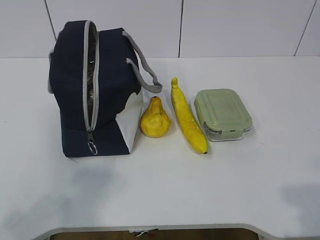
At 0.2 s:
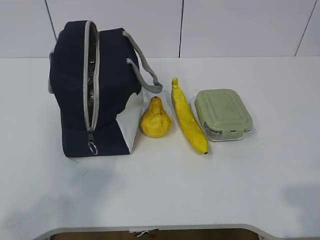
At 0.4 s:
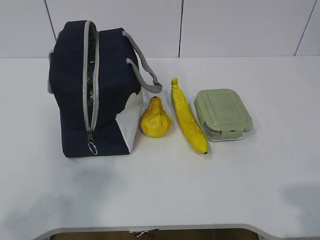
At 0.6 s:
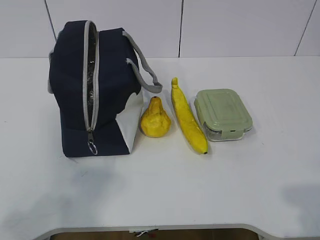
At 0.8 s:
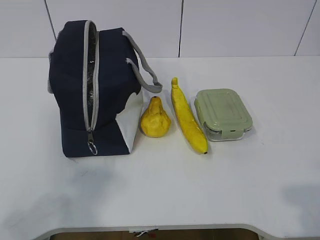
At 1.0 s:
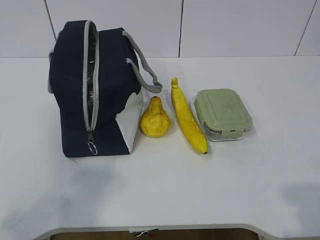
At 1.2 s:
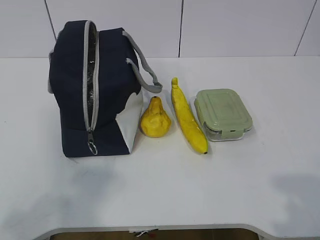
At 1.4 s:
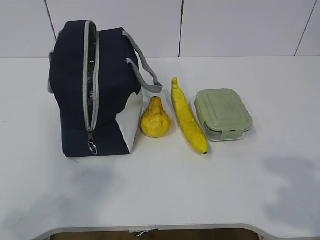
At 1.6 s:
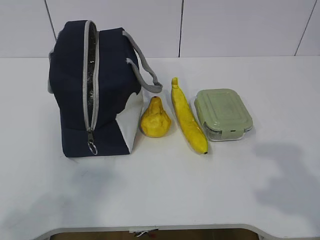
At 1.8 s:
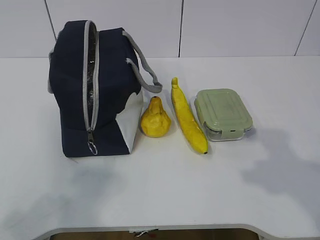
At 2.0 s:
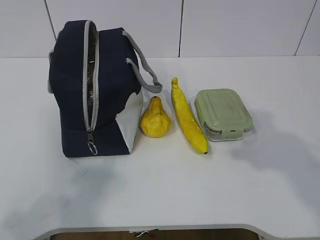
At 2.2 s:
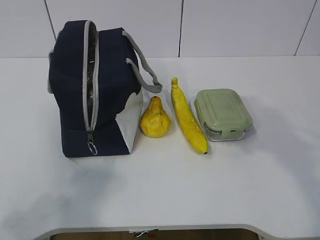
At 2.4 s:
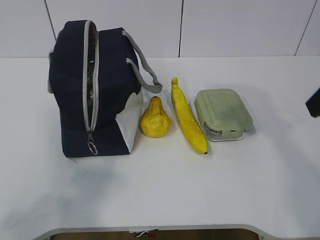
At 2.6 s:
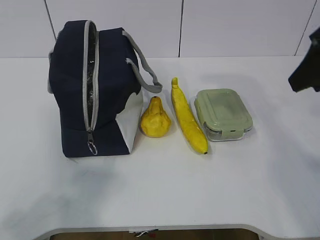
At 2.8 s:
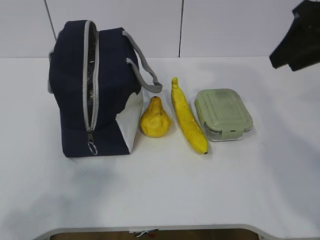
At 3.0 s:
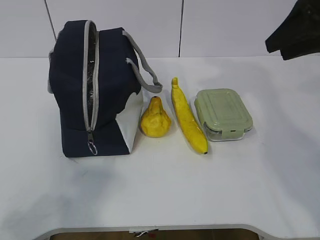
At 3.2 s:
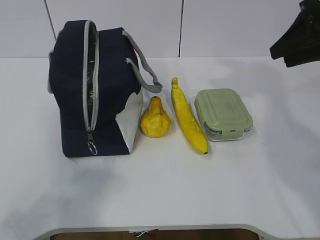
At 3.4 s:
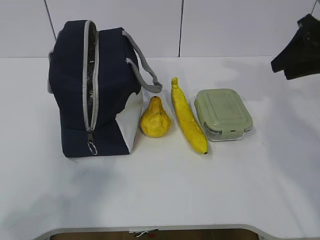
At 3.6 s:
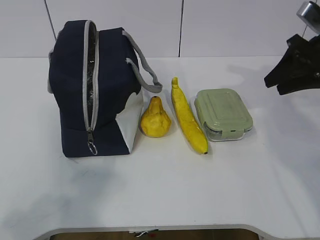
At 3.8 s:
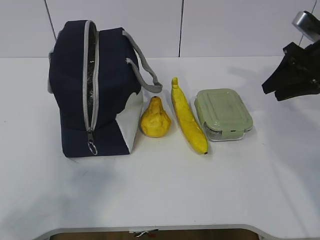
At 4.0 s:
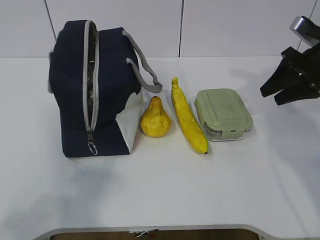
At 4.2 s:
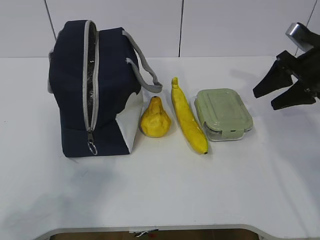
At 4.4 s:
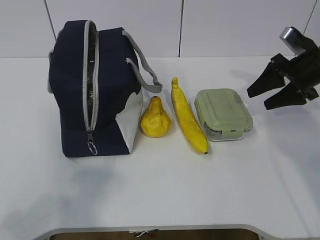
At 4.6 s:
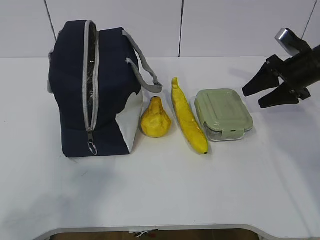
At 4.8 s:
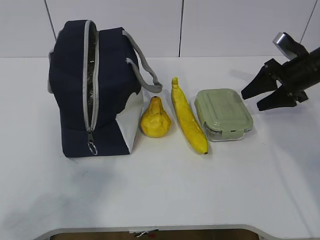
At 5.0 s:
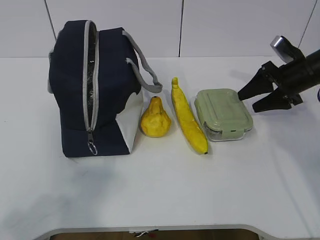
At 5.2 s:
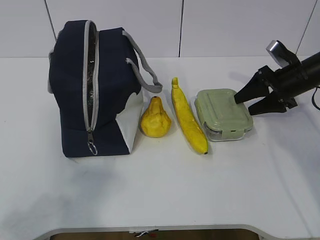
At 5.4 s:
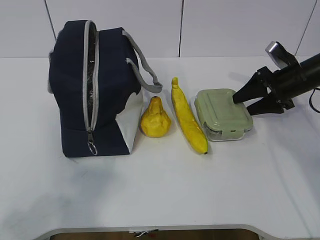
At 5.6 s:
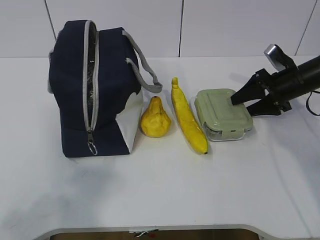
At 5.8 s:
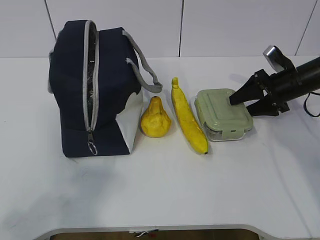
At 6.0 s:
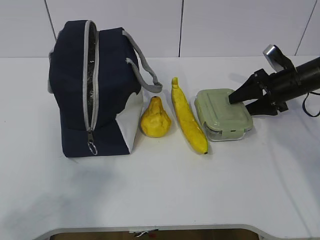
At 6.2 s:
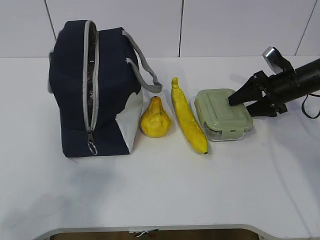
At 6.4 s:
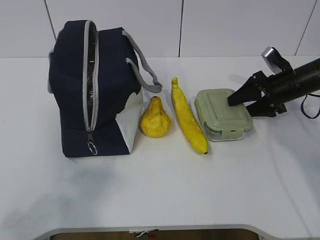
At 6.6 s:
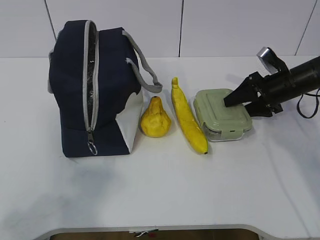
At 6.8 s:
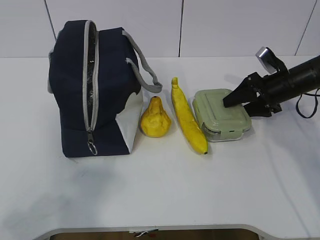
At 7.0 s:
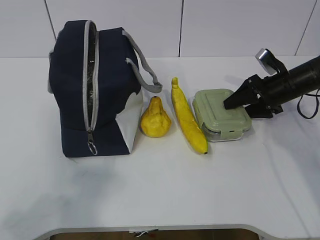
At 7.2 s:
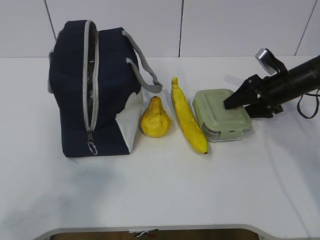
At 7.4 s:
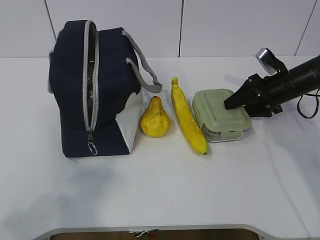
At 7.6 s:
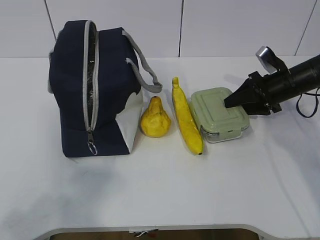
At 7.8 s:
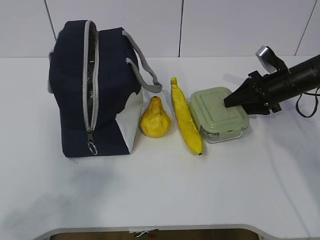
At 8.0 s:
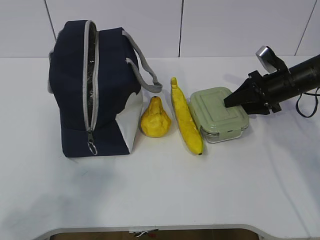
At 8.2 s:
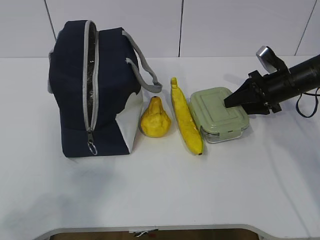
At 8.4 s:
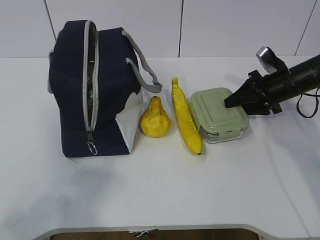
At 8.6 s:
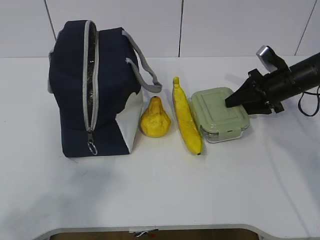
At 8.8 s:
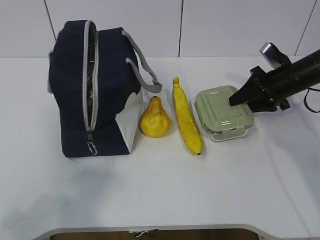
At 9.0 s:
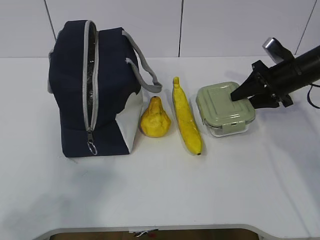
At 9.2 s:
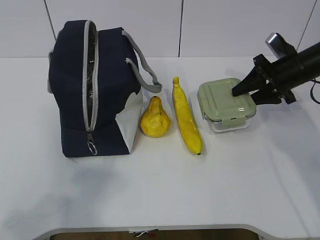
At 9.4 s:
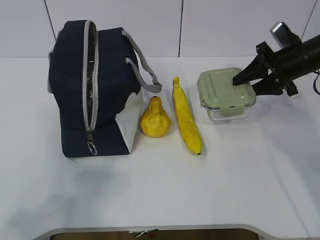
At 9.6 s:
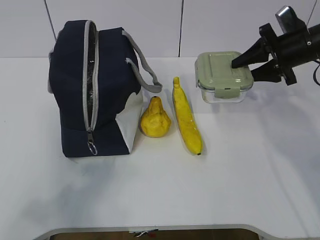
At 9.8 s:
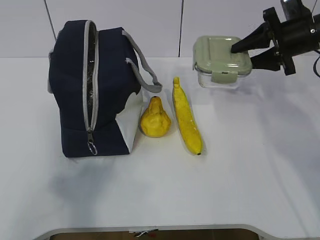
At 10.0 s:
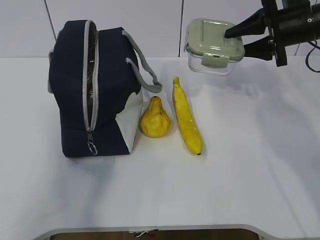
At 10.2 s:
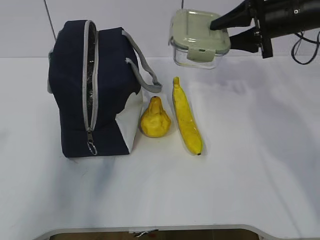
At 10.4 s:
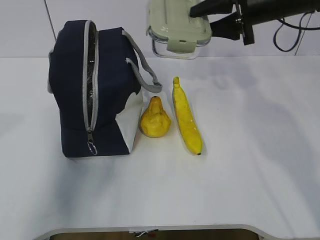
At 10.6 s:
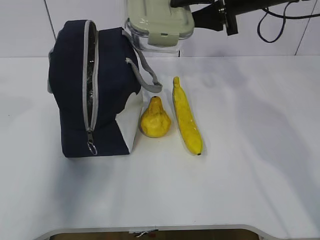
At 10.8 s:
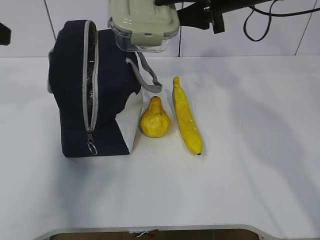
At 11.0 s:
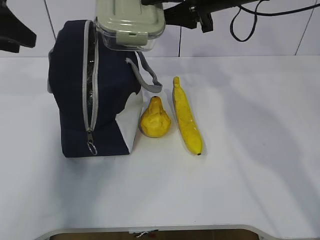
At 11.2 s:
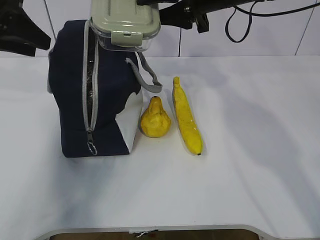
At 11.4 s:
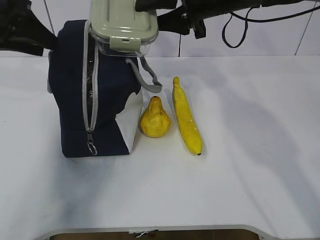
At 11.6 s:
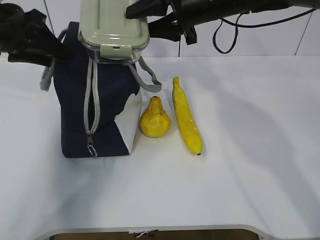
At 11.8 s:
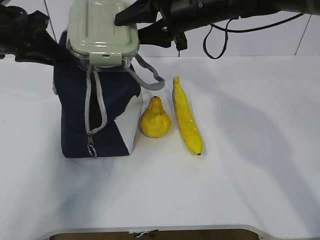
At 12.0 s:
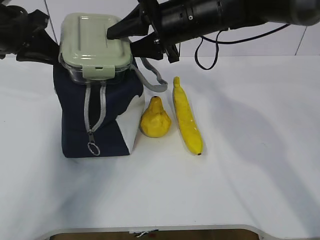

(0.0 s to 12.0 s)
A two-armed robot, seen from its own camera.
Step, 0.0 s - 7.0 s: Grab the lunch box with your right hand.
1.6 s - 3.0 s: The right gripper moves forward, roughly 30 cm.
3.0 s - 4.4 s: The right gripper heads downward and forward, covering approximately 15 cm.
4.4 s - 6.0 s: The right gripper moves downward, roughly 5 cm.
6.0 s - 7.6 s: Neither gripper changes place.
7.6 s - 9.0 s: There are only small adjustments of the grippers.
9.0 s - 10.4 s: The right gripper shifts roughly 15 cm upward and to the left; the left gripper heads forward and upward, covering about 15 cm.
10.4 s - 12.0 s: The left gripper travels forward by about 25 cm, and closes. The right gripper shifts approximately 15 cm to the left.

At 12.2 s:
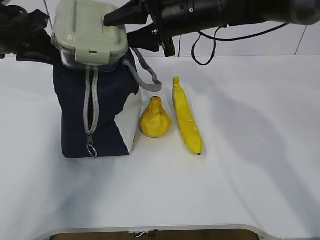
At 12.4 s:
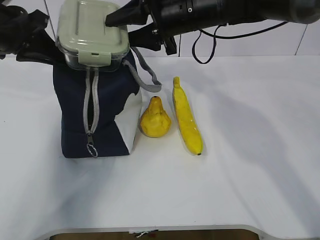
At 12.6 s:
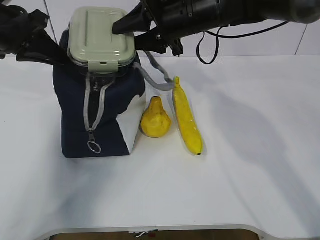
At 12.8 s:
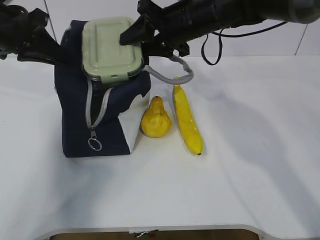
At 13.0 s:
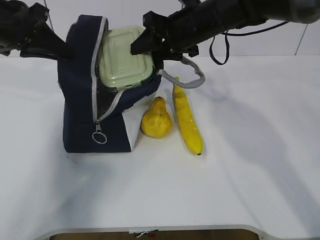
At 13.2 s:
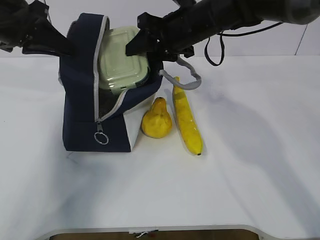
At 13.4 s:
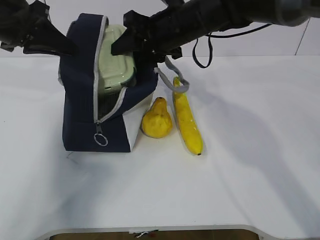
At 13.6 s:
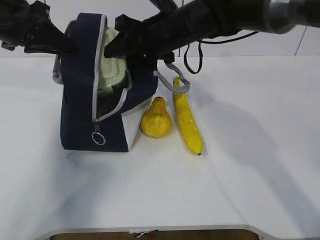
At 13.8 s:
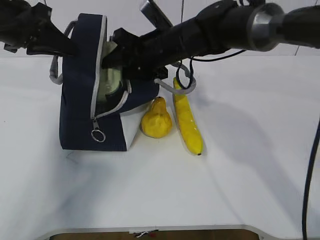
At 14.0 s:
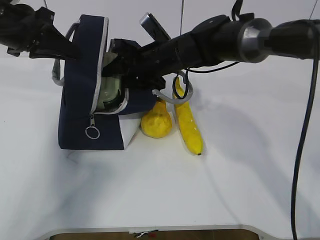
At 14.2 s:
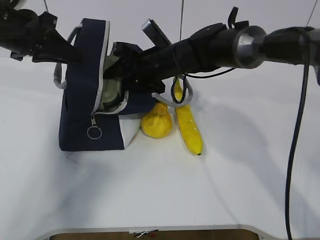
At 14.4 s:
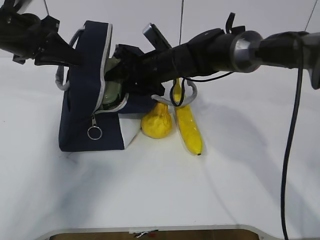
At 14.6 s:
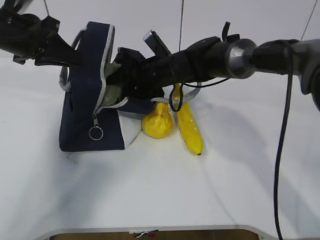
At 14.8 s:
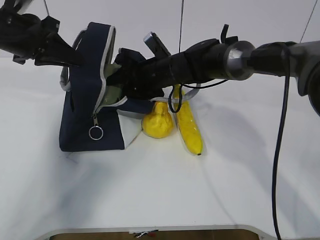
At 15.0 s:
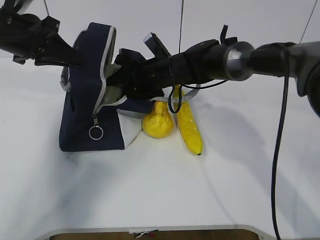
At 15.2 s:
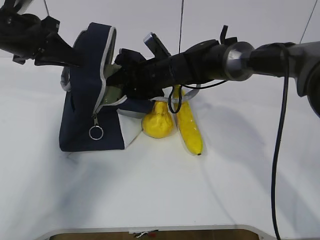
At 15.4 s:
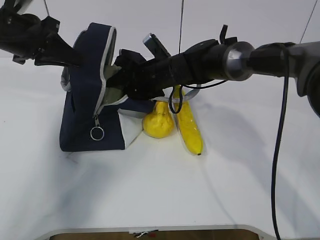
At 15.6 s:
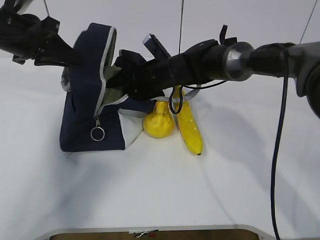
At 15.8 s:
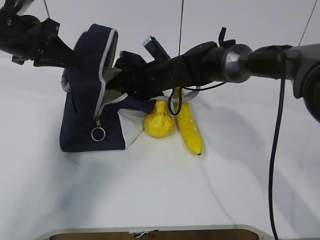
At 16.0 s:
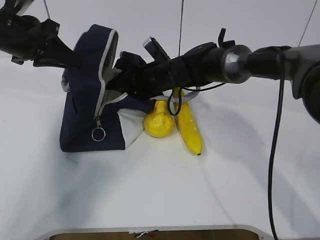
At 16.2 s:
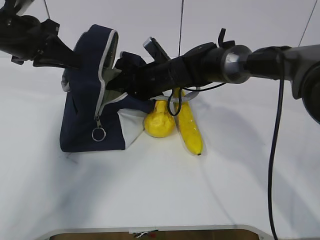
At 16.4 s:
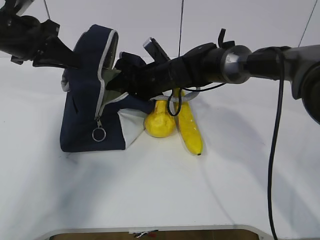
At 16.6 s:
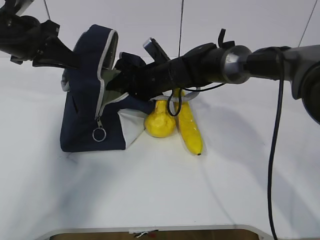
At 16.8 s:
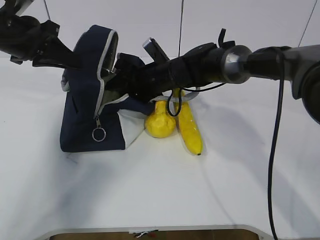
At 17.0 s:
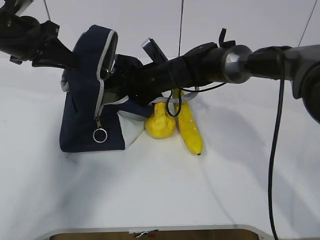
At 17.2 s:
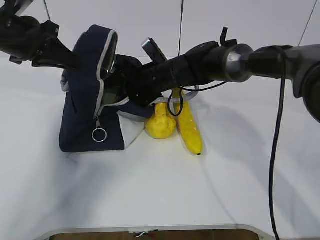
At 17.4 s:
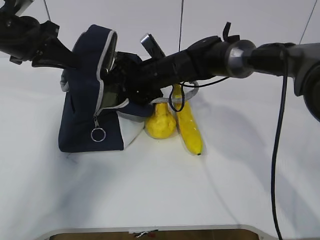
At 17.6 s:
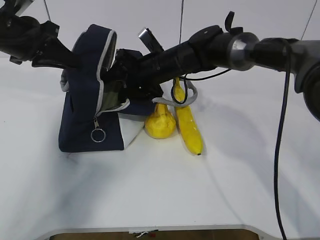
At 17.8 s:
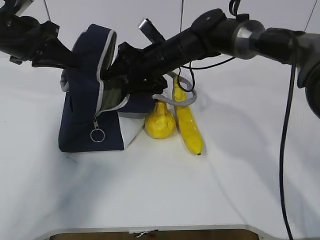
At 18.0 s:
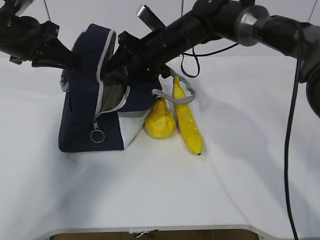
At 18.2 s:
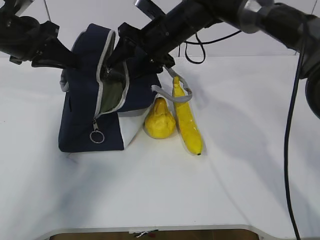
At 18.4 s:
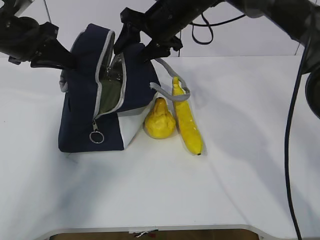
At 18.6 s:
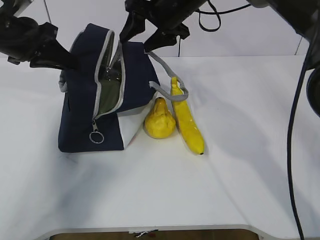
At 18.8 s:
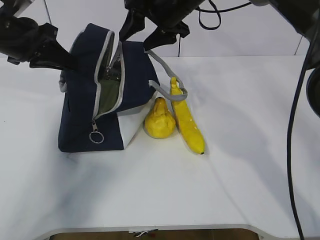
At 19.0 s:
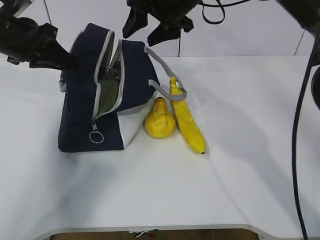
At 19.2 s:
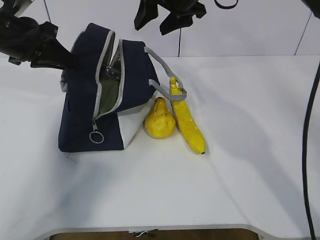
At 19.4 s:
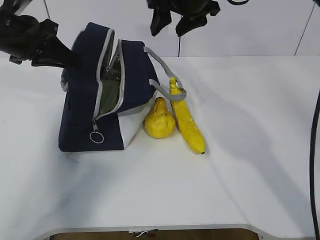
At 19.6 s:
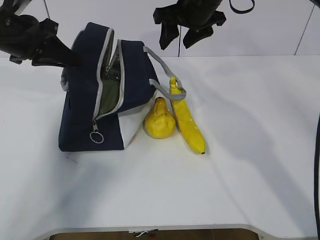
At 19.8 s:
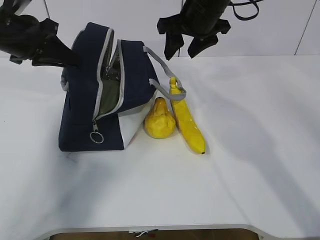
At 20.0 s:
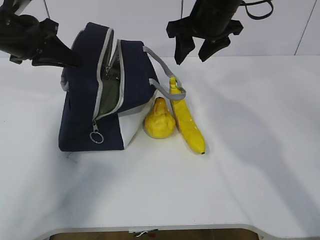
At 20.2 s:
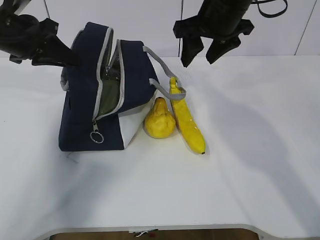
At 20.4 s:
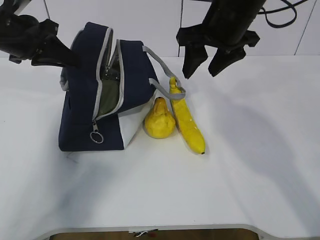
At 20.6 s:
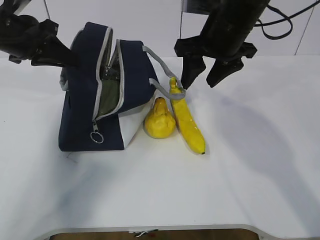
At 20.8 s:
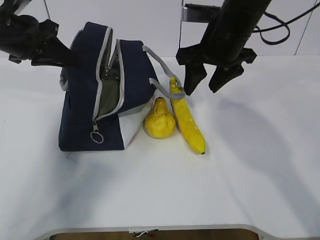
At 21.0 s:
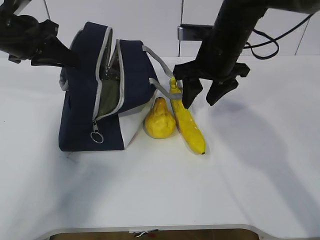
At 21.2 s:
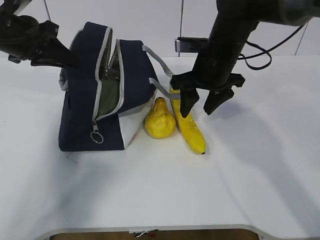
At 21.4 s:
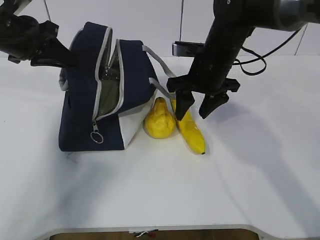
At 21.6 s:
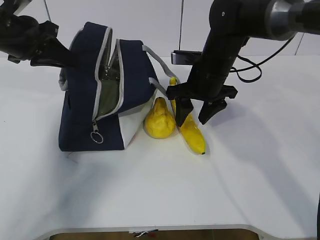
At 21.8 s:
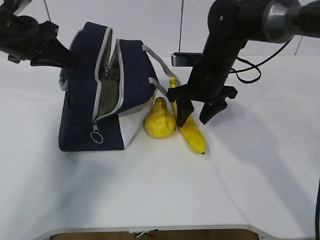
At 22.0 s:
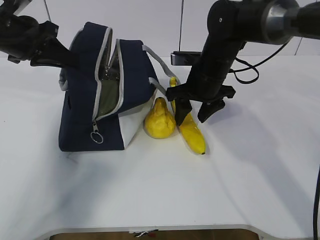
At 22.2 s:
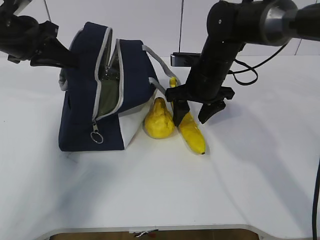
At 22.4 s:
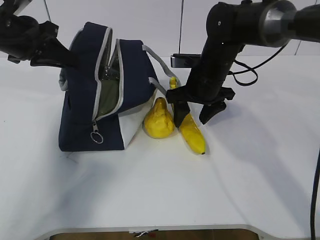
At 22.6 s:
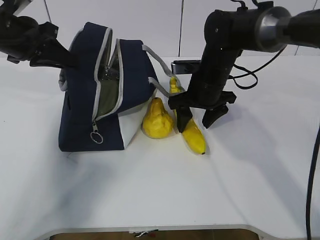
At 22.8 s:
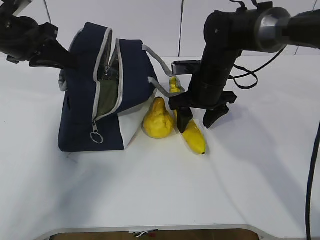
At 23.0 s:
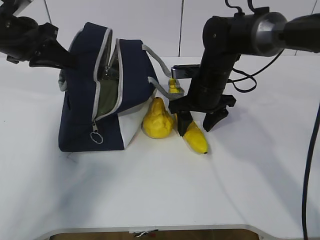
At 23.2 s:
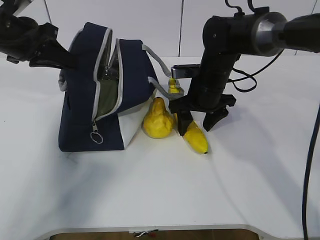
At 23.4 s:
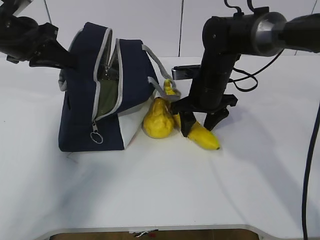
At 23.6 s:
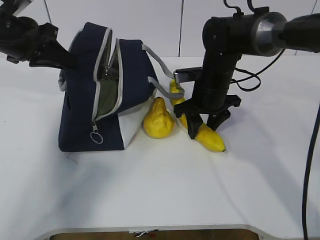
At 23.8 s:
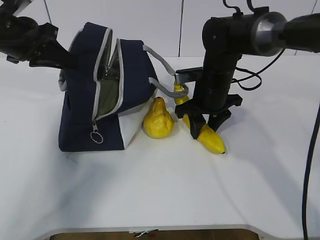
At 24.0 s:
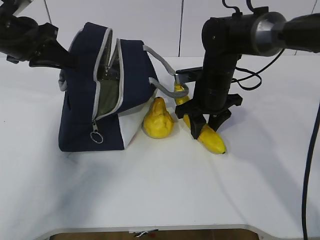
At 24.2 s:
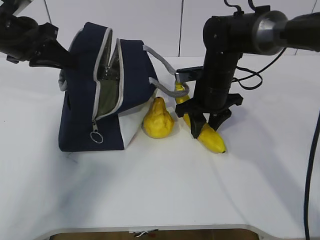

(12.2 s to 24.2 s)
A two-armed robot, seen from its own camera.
Step, 12.2 s - 14.4 s: Place it into the bag with your right hand.
Step, 14.6 s - 20.0 s: Grab the banana with your right hand.
12.2 s - 13.8 s: The right gripper shifts about 5 cm downward.
13.8 s - 15.2 s: The right gripper heads downward, covering roughly 5 cm.
15.2 s - 16.6 s: Both grippers stay put.
16.6 s - 18.2 s: The right gripper heads upward, covering some 10 cm.
18.2 s - 19.8 s: The right gripper travels to the right and upward by about 10 cm.
19.8 s - 21.2 s: The right gripper travels downward by approximately 5 cm.
21.2 s - 22.6 s: The right gripper heads downward, covering approximately 5 cm.
22.6 s - 24.2 s: The right gripper closes its fingers.
